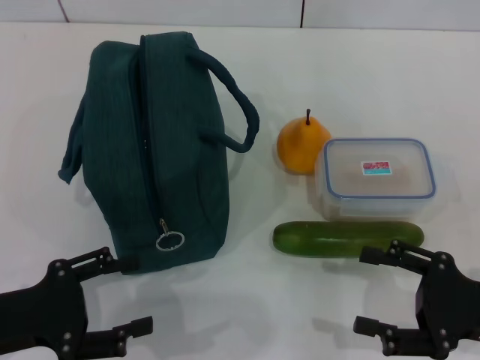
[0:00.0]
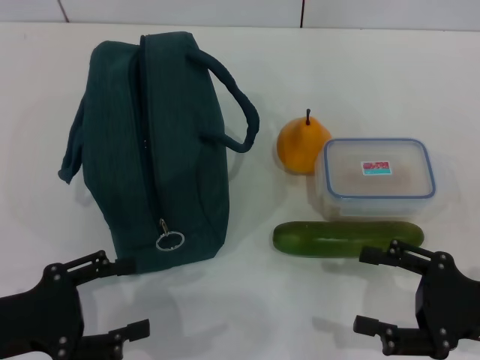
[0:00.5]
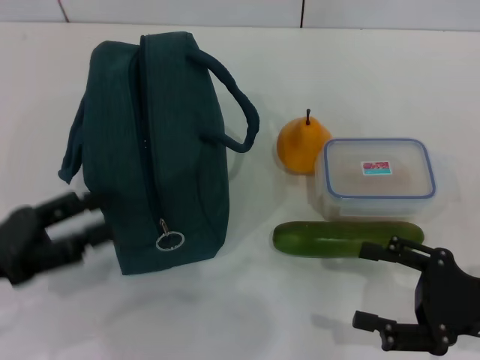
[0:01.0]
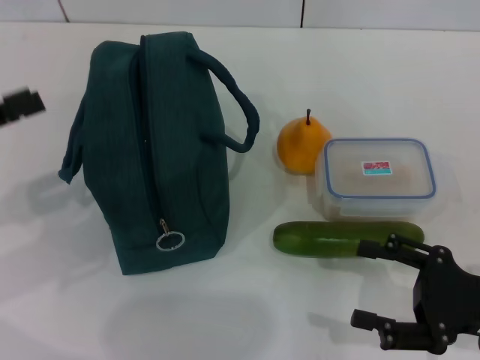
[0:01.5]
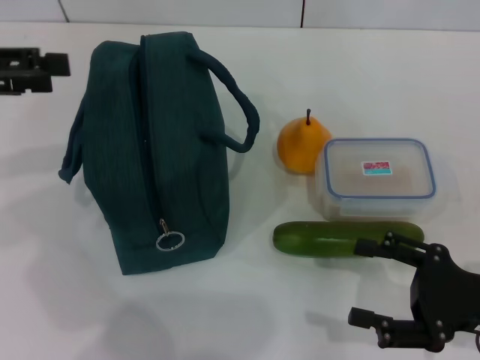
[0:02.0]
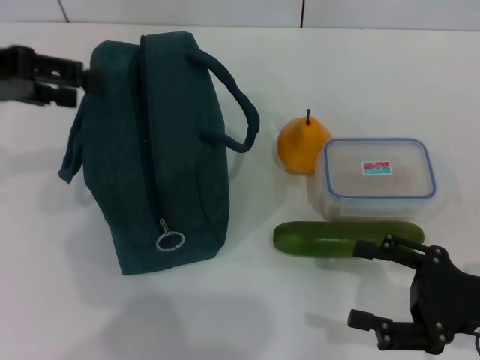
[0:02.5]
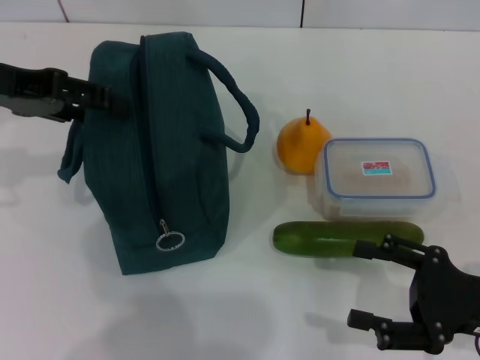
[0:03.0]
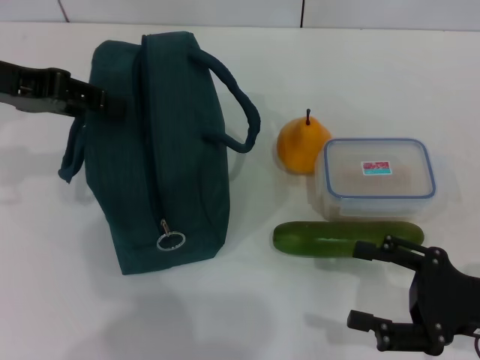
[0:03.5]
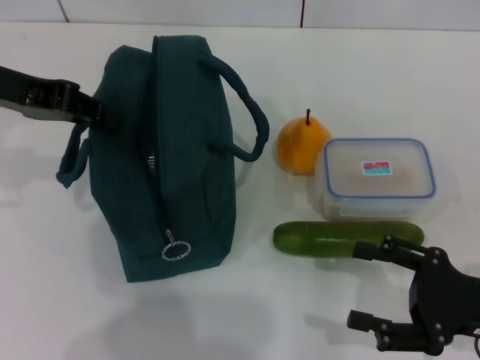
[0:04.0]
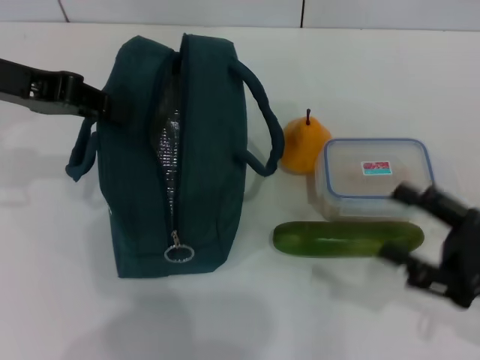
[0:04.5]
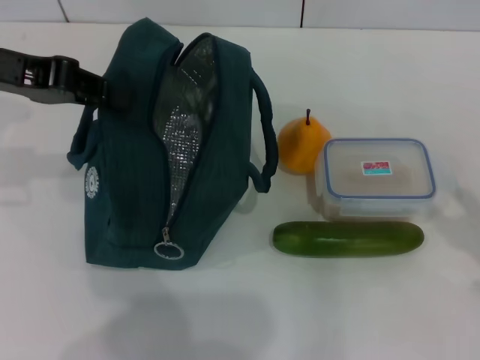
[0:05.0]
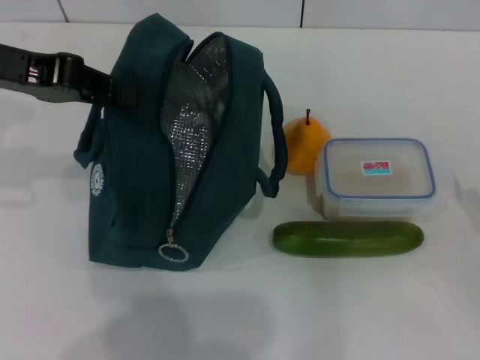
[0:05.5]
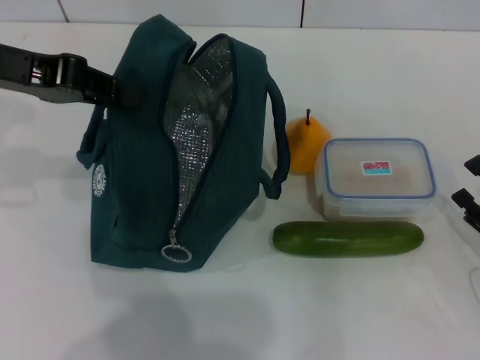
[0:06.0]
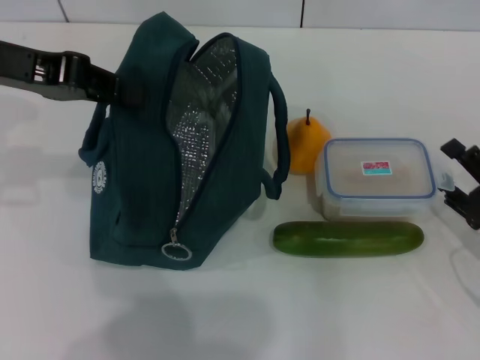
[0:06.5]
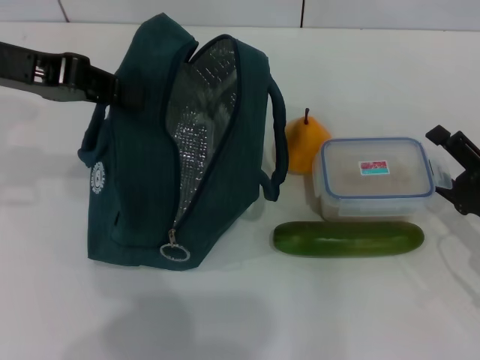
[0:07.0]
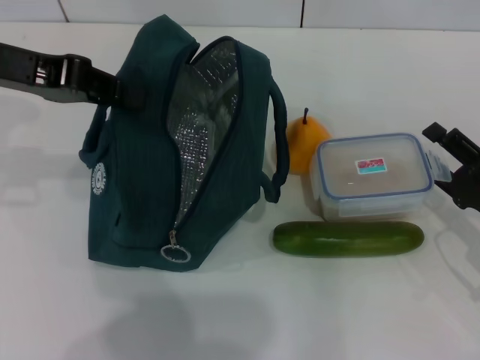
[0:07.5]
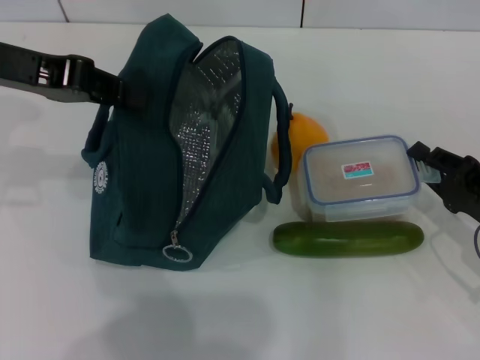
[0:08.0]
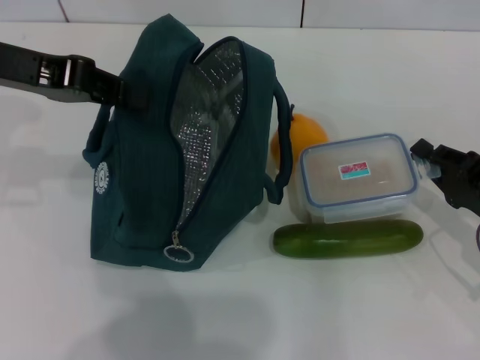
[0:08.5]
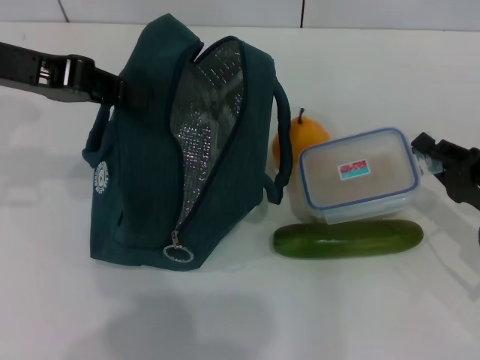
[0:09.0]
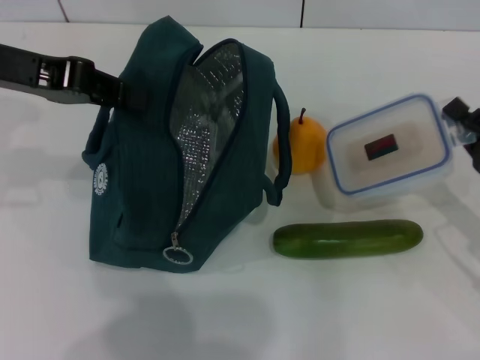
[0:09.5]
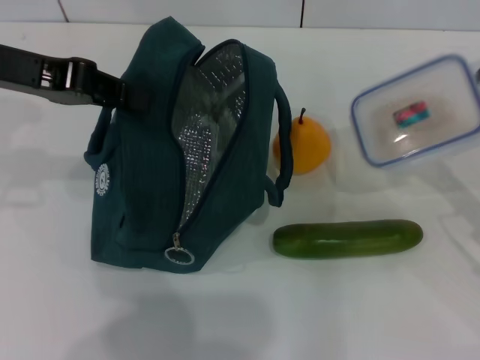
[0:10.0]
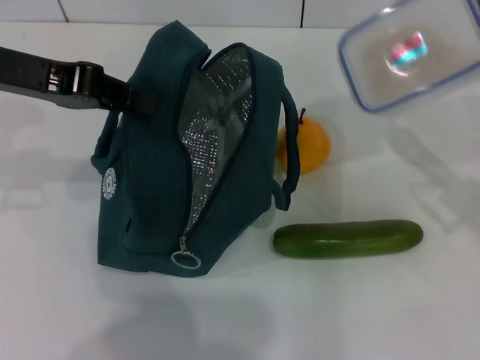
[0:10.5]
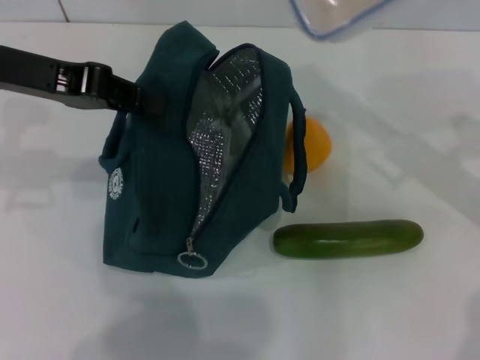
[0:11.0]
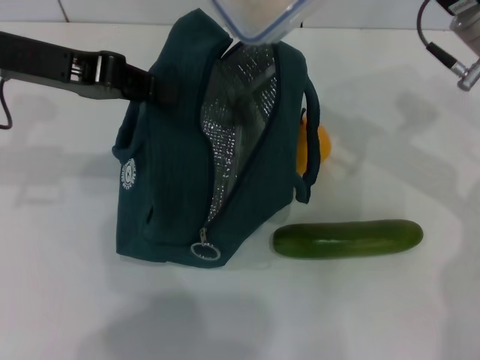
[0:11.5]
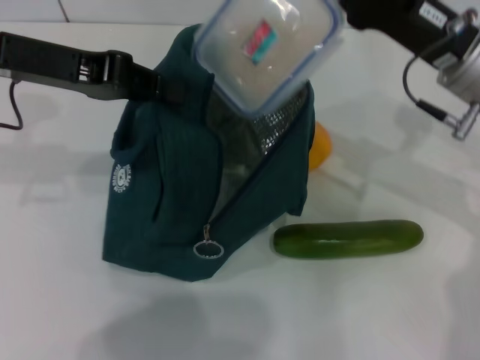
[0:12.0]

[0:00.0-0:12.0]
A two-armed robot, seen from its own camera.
Step, 0:00.0 to 0:05.0: Hold the lunch bag with your left hand.
Step, 0:05.5 to 0:08.5: Pick up the lunch box with your right hand.
0:00.0 to 0:02.0: The left gripper goes about 20 cm upward and forward.
0:02.0 to 0:04.0: The left gripper goes about 5 cm to the right, and closes up.
0:04.0 to 0:06.0: The right gripper changes place by some 5 cm.
0:06.0 to 0:08.0: The right gripper goes roughly 5 cm forward, and closes its fingers.
0:08.0 to 0:10.0: The right gripper ends up about 5 cm from where it was, and closes its fingers.
0:10.0 to 0:12.0: The right gripper moves to the left, forward and upward, about 15 cm.

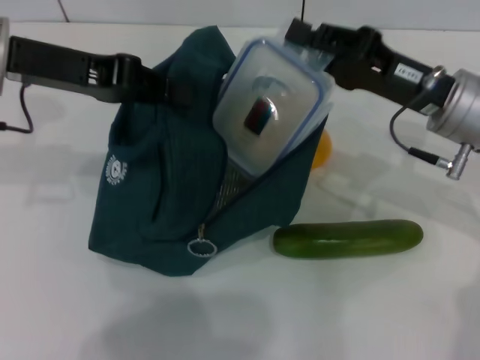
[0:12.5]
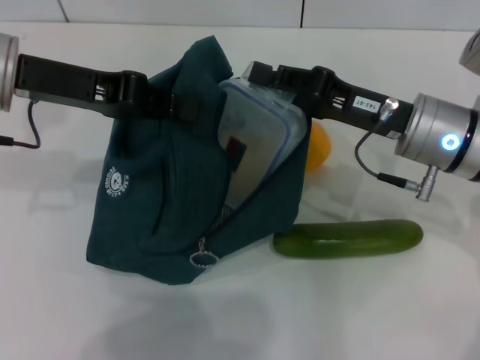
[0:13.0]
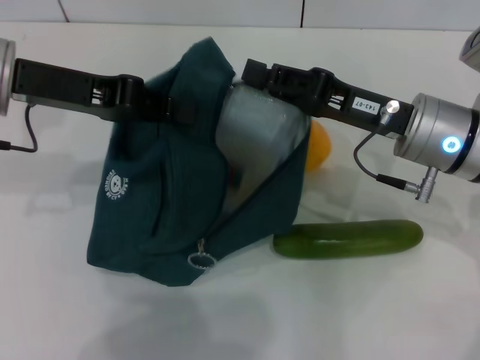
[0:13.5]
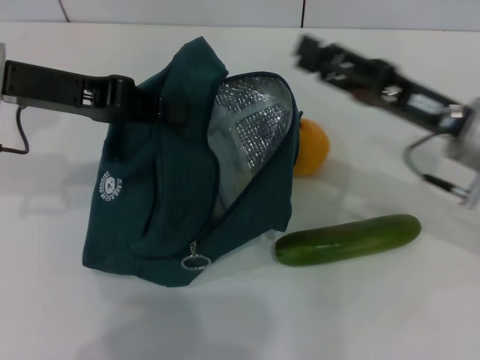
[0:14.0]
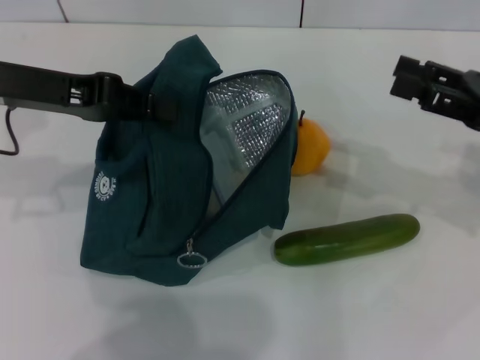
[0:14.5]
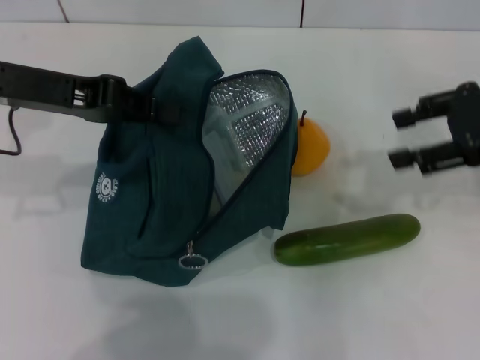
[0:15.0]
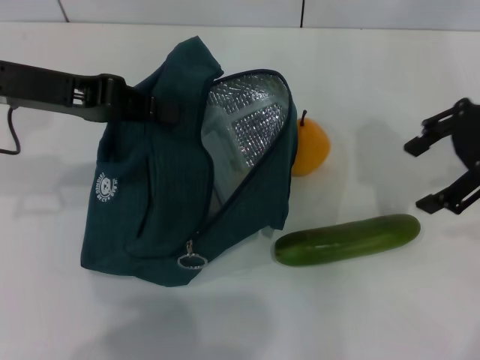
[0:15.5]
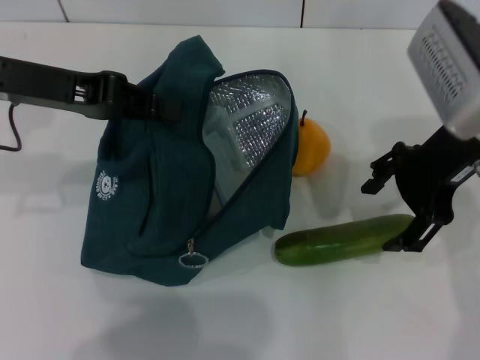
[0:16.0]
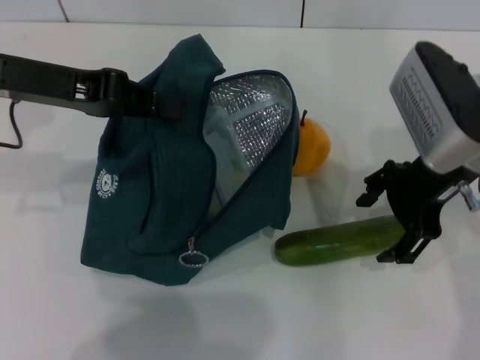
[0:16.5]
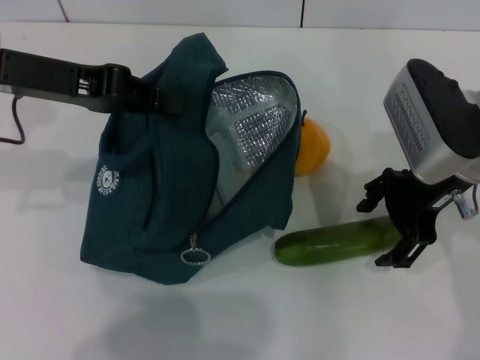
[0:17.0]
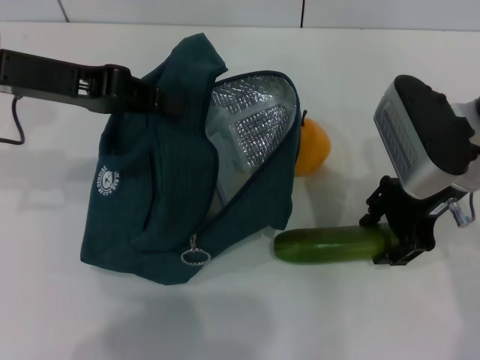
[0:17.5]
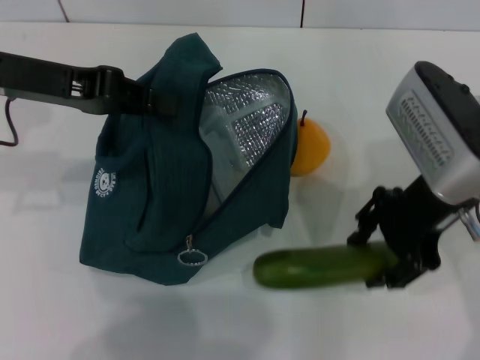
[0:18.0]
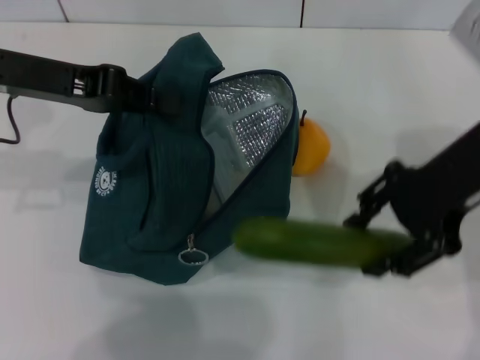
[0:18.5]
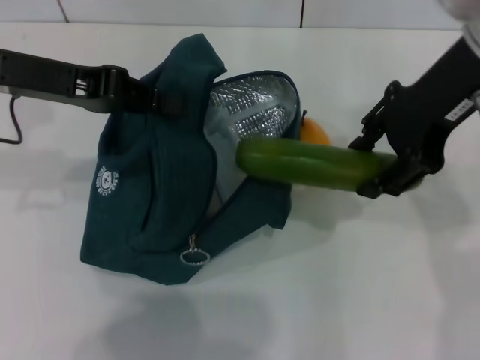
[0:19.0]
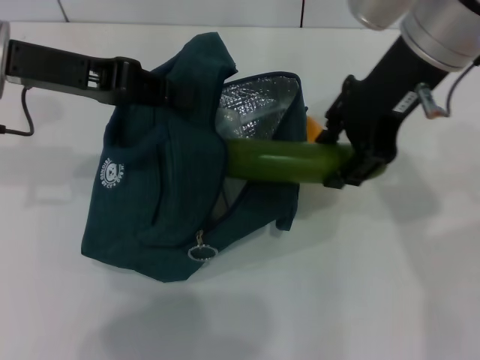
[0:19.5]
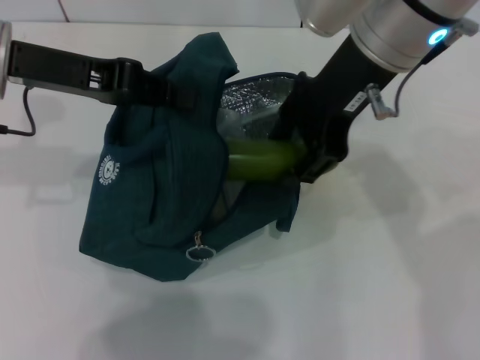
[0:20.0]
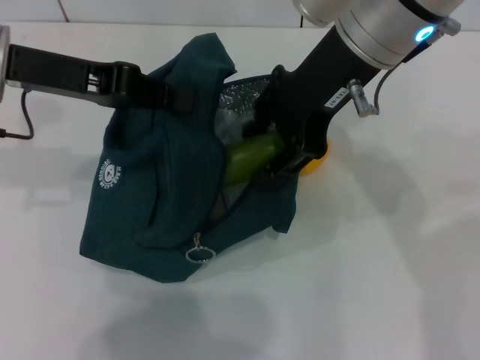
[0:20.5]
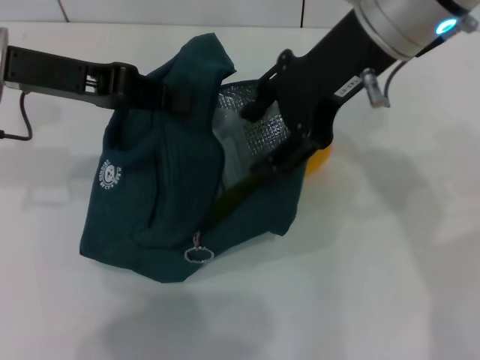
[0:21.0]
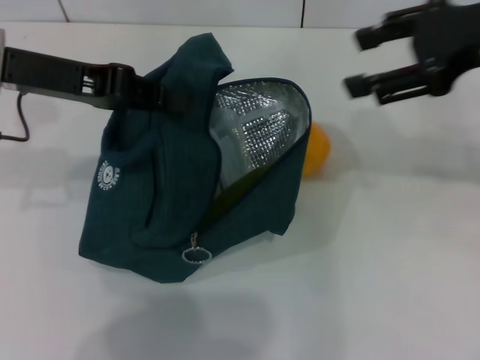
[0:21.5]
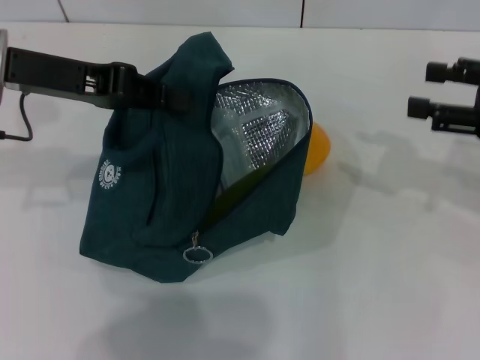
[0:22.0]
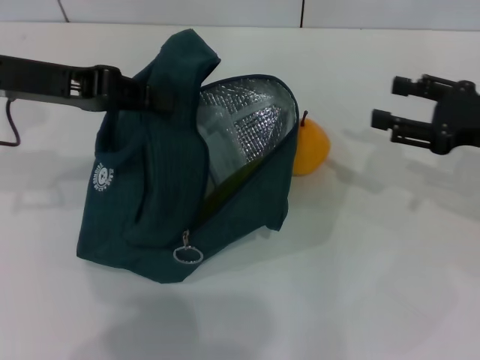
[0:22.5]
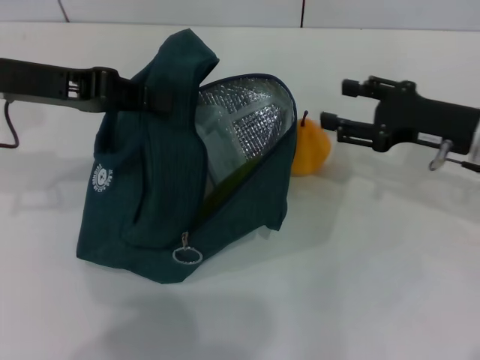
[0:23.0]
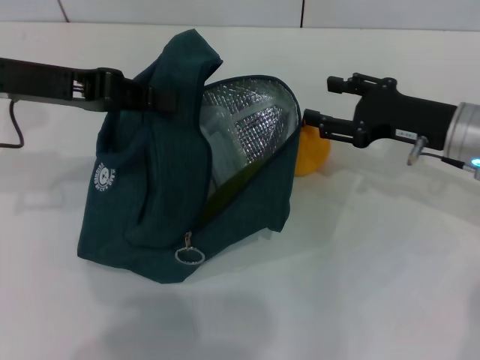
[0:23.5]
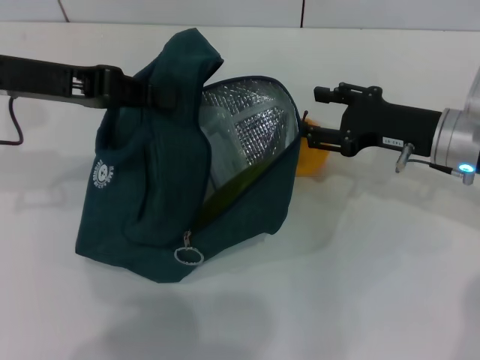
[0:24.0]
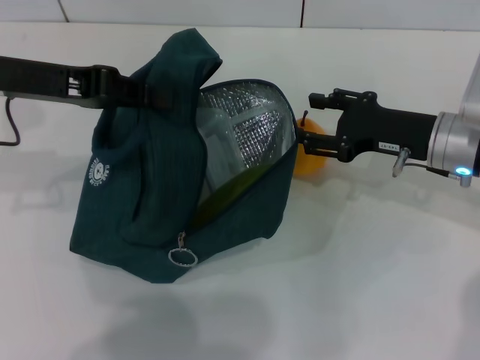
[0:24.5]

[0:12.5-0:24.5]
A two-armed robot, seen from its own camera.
Step, 0:14.0 to 0:17.5: Pick up the cucumber with your right hand.
Step, 0:18.0 to 0:21.0: Put the cucumber into the lunch bag with your right hand.
0:12.5 to 0:14.5: The right gripper heads to the right, covering approximately 10 cm, and opens up.
0:14.5 to 0:16.5: The right gripper heads to the left, covering approximately 10 cm.
0:16.5 to 0:18.5: The right gripper moves upward, about 5 cm.
0:18.5 to 0:20.5: The right gripper heads to the left, covering roughly 10 cm.
0:20.5 to 0:22.5: The right gripper heads to the right and downward, covering about 25 cm.
0:22.5 to 0:24.5: The right gripper heads to the left, covering approximately 10 cm.

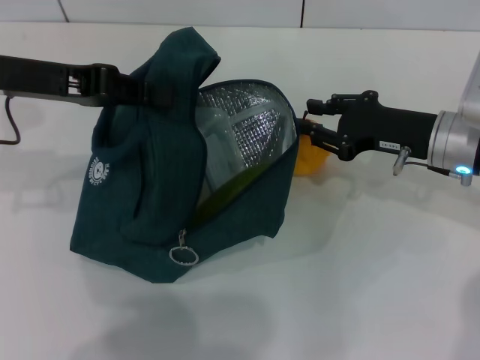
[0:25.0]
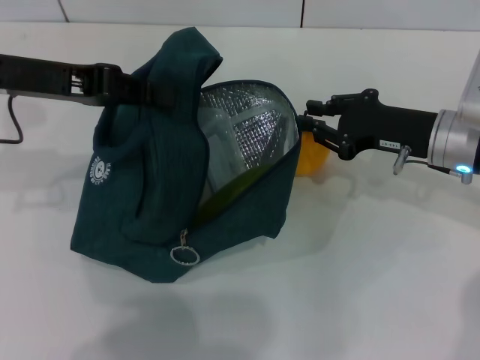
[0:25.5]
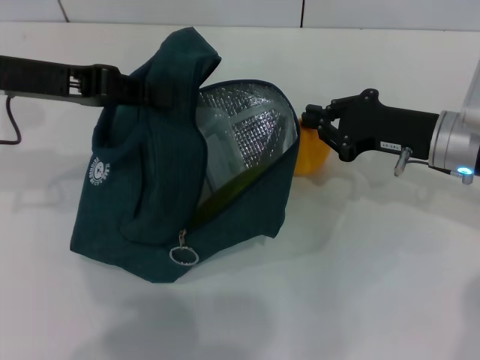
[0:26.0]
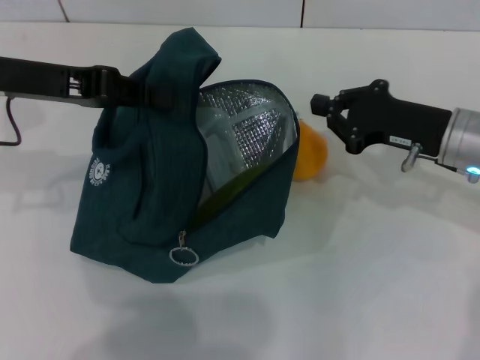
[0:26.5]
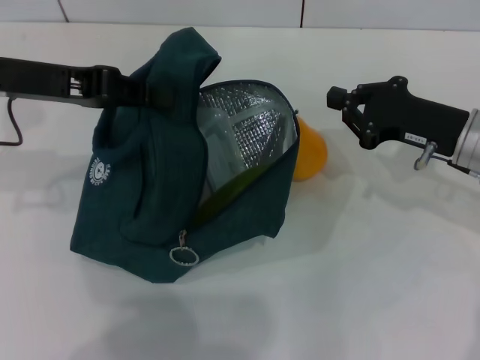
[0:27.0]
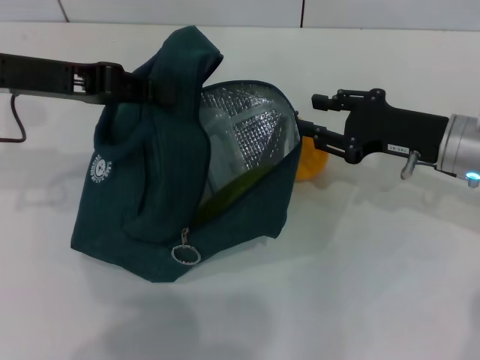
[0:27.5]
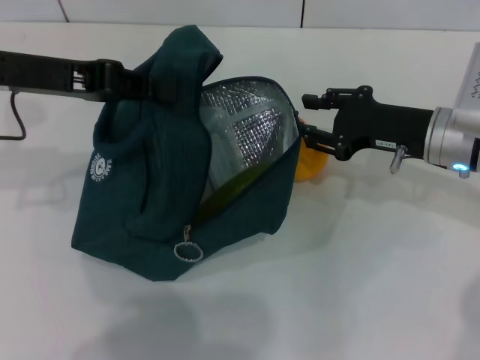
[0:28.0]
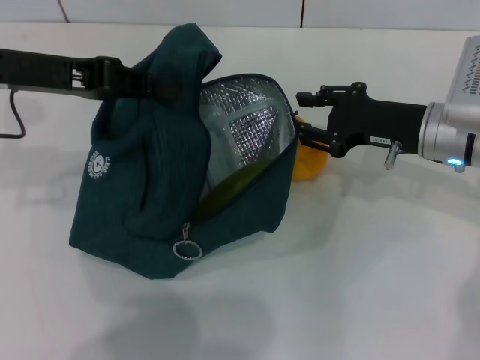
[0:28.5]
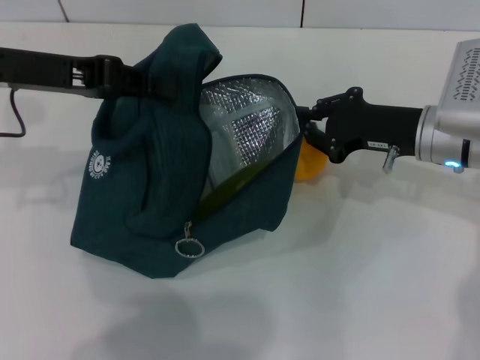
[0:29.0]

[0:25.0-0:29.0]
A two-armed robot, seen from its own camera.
0:25.0 to 0:27.0: The right gripper closes its fingers.
0:27.0 to 0:29.0: The grippers stay close to where they were, moving slightly.
